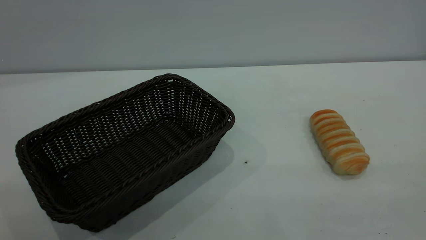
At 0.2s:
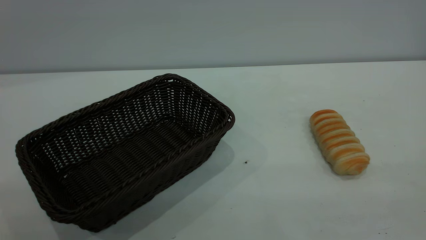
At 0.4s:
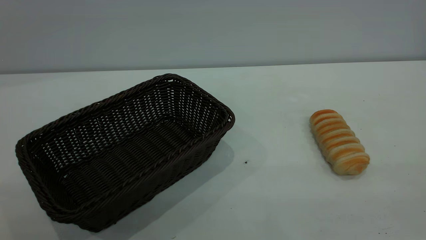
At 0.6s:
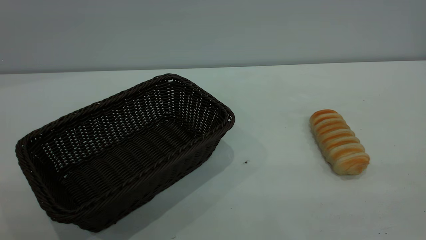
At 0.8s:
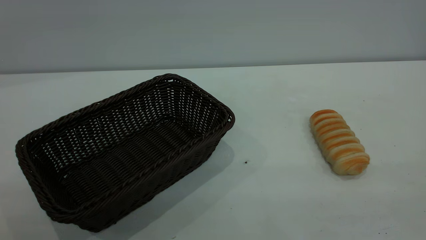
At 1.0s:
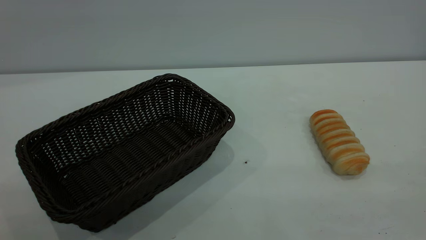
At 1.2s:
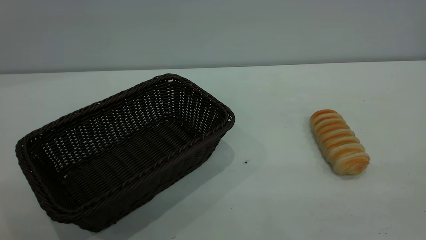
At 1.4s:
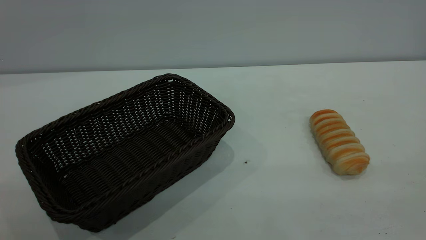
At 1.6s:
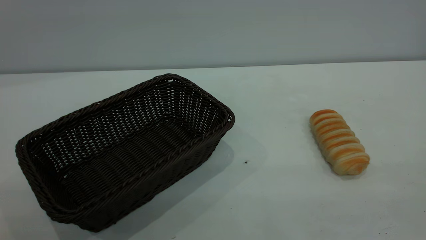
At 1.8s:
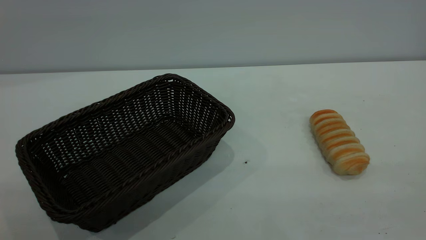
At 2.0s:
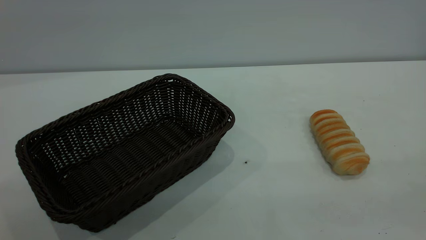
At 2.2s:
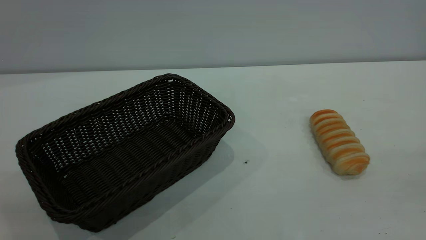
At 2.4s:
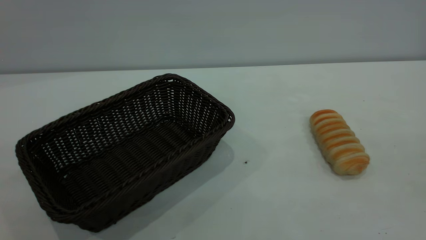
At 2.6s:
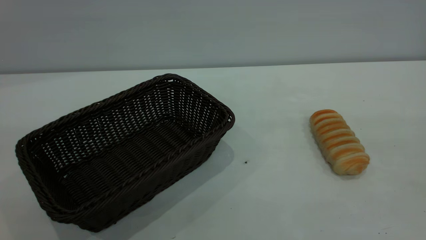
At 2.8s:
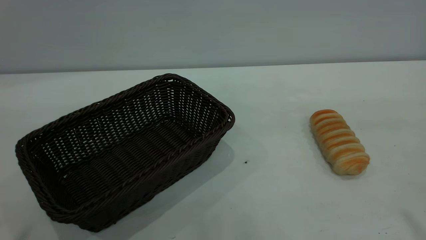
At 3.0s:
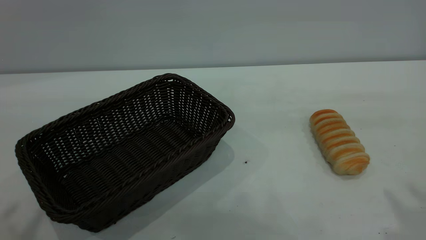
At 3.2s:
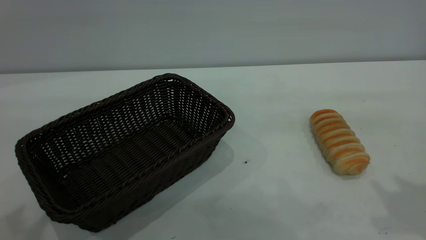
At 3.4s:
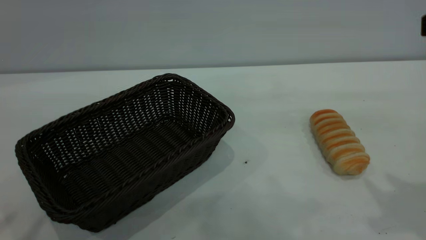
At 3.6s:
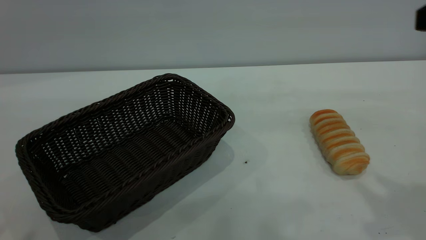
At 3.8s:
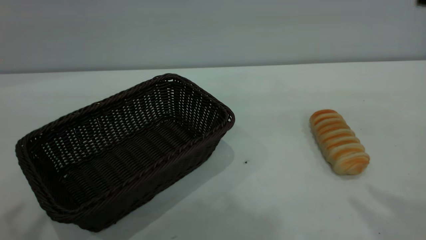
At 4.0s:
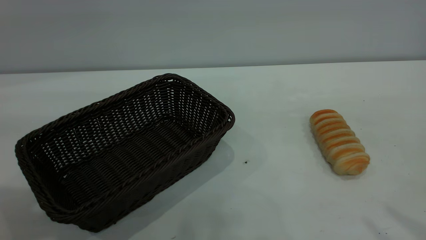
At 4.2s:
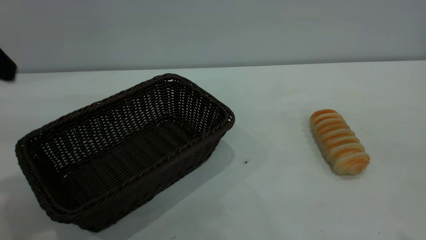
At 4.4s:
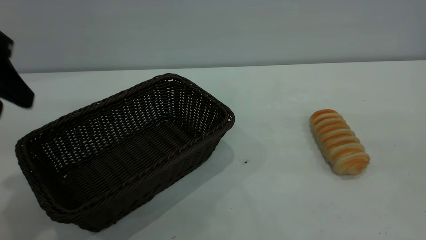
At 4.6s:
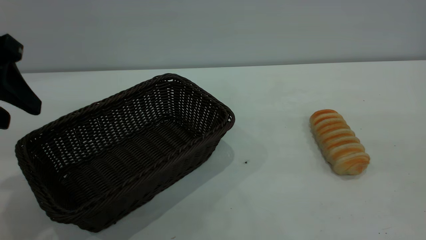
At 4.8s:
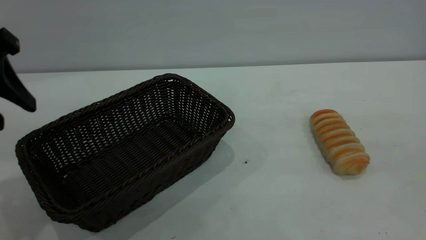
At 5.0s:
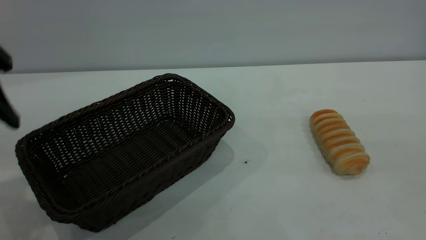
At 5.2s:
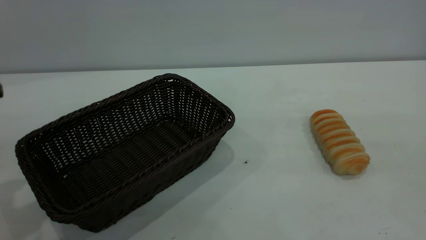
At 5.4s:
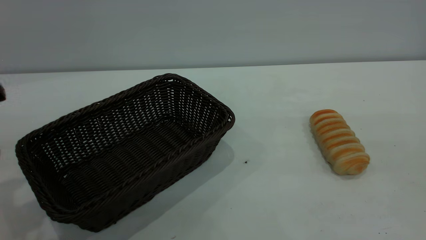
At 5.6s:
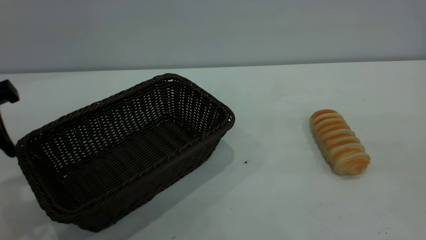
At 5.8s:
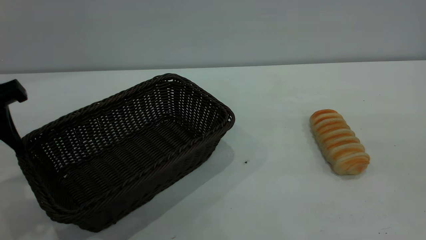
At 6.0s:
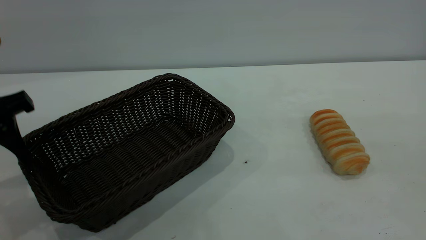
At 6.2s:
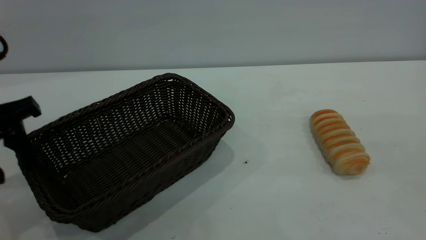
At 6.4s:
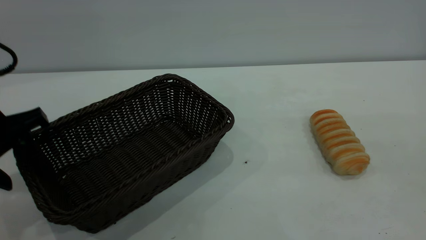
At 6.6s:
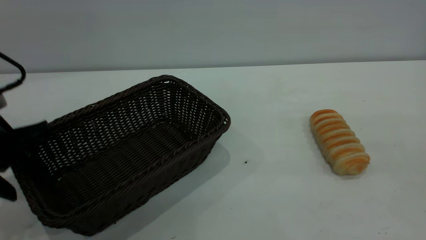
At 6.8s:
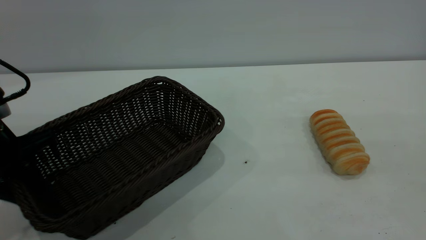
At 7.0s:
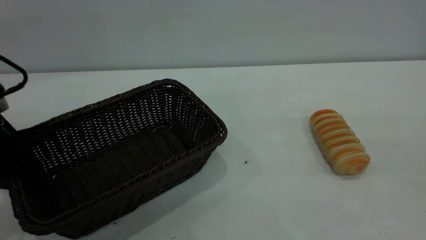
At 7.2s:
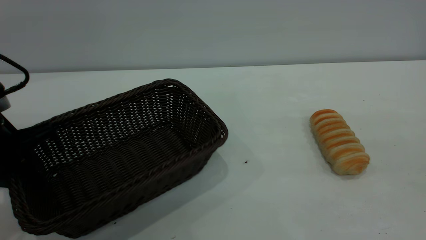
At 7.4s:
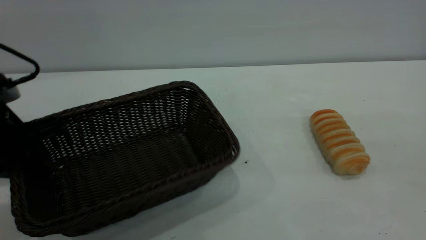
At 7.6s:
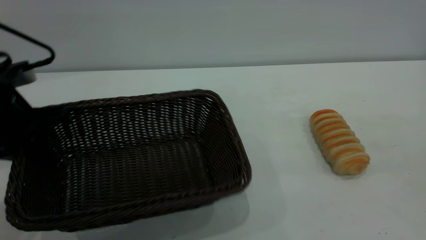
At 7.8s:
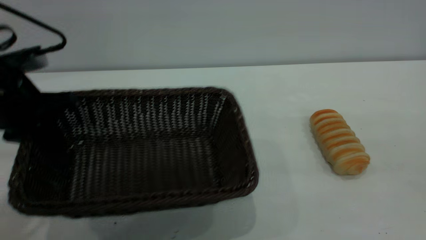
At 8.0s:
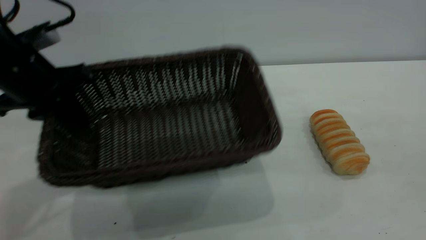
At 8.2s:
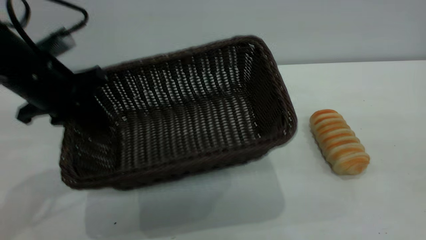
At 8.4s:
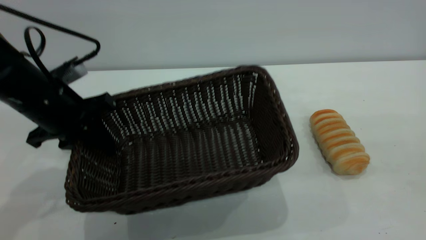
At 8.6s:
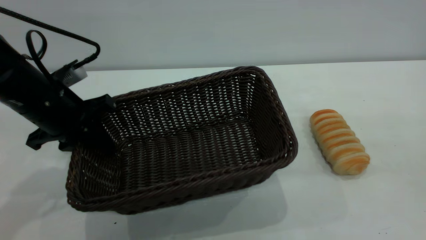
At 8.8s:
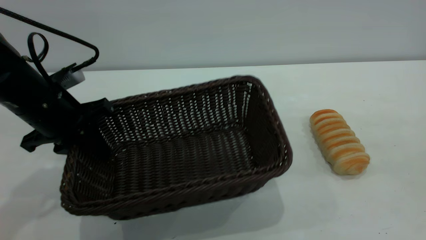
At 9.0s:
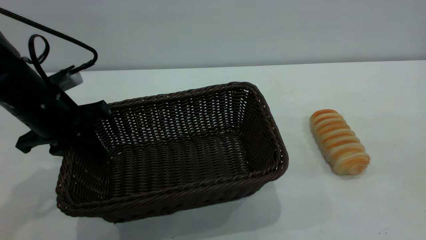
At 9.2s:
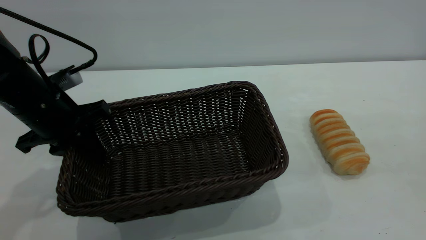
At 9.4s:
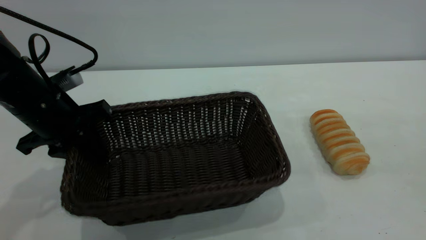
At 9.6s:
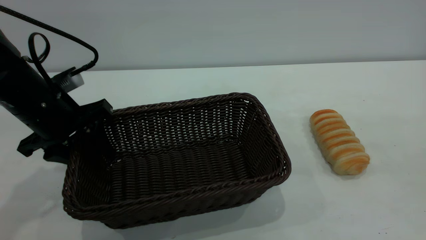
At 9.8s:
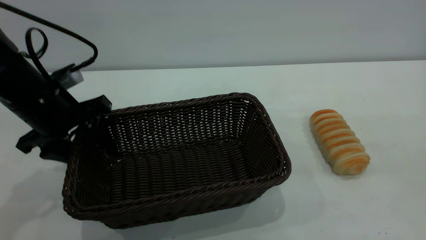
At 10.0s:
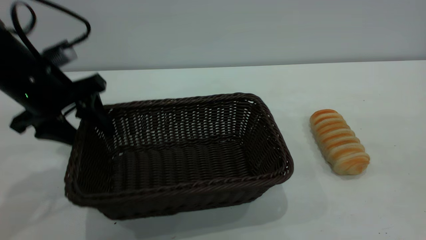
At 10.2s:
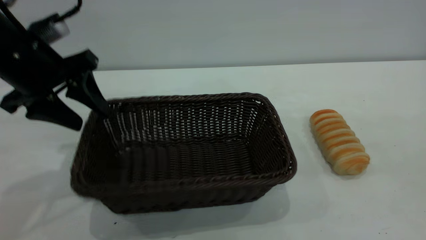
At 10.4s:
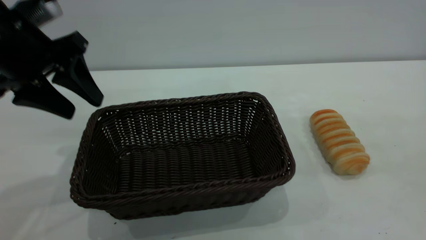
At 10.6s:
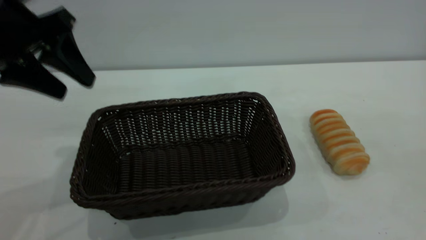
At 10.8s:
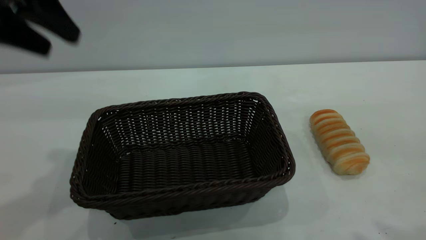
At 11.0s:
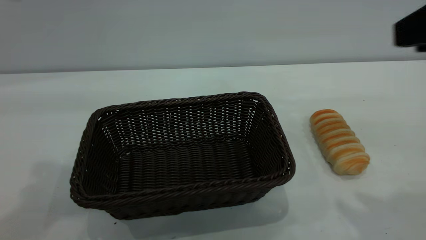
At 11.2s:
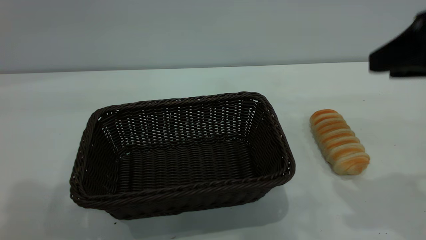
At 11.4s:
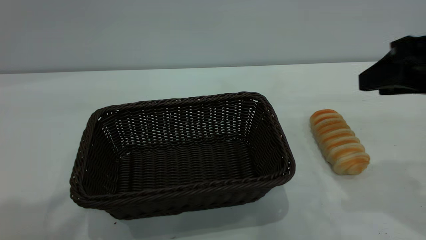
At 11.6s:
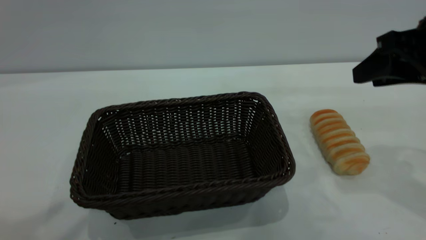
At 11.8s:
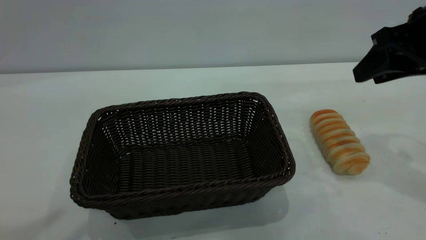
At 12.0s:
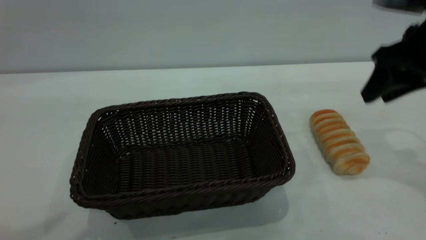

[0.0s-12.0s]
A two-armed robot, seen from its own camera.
Task of the whole recording: One hand grasps the black basket and places it in the middle of the table, while the other hand picks up the long bread and puts it into the black basket.
Step, 0.0s to 10.4s: Move the basket to the center of view.
0.0s to 1.6s: The two grippers keep their place.
3.0s to 4.4s: The left gripper is displaced downward and forward by approximately 15 cm.
4.4s to 6.0s: The left gripper goes roughly 5 cm downward.
6.0s to 7.6s: The left gripper closes.
7.6s to 9.0s: The left gripper changes place by roughly 5 cm.
9.0s to 10.4s: The left gripper goes about 10 cm upward, and opens.
10.4s to 12.0s: The left gripper shifts about 30 cm upward and backward. The right gripper heads forward and downward, covering about 30 cm.

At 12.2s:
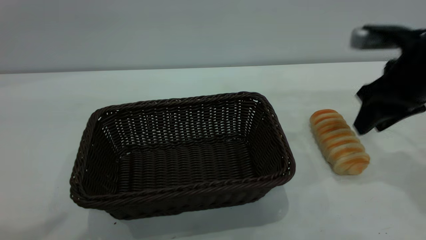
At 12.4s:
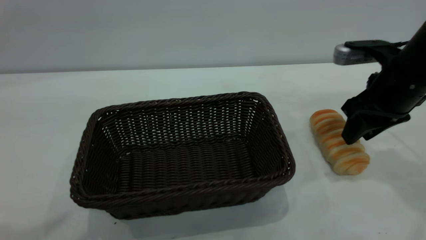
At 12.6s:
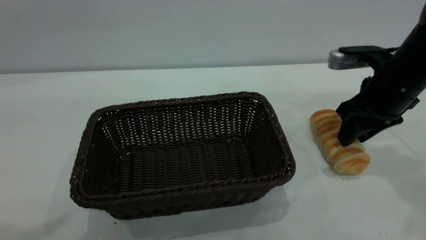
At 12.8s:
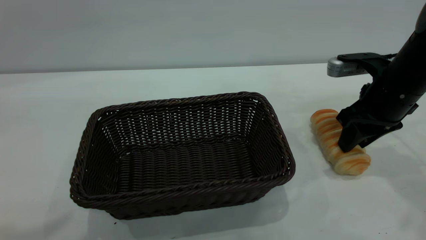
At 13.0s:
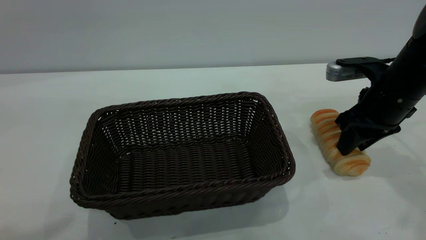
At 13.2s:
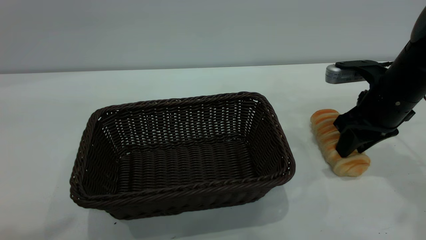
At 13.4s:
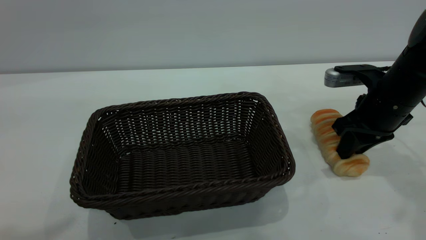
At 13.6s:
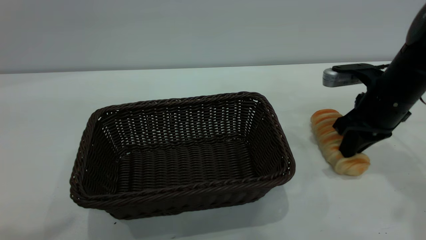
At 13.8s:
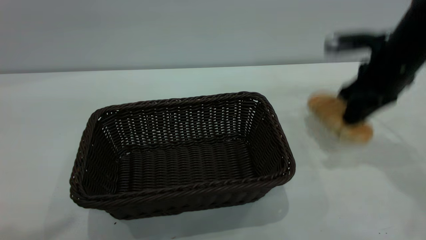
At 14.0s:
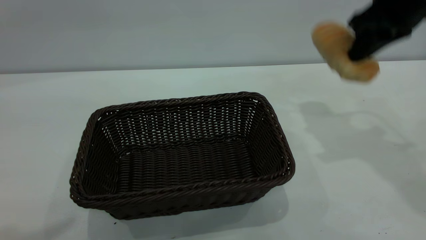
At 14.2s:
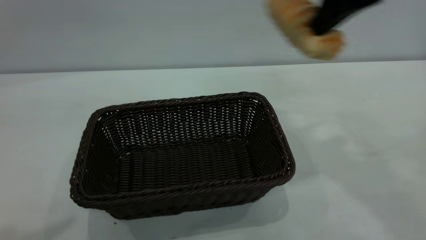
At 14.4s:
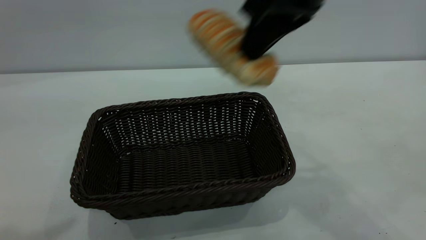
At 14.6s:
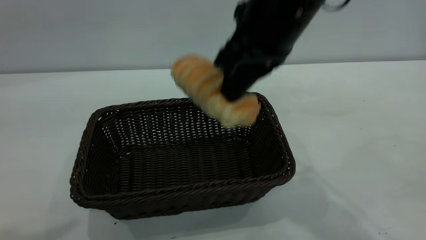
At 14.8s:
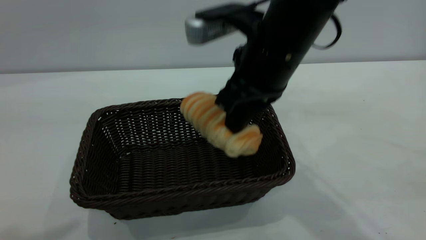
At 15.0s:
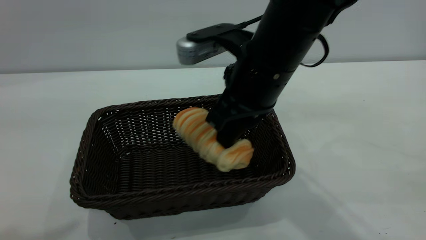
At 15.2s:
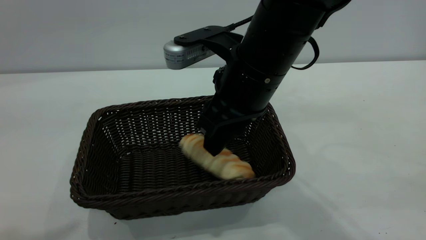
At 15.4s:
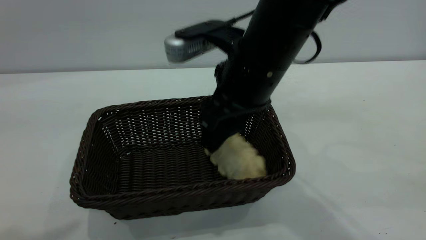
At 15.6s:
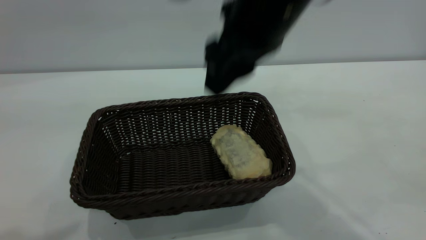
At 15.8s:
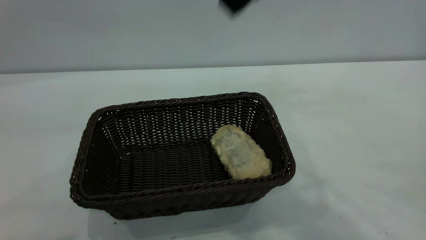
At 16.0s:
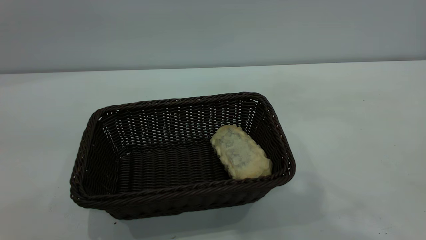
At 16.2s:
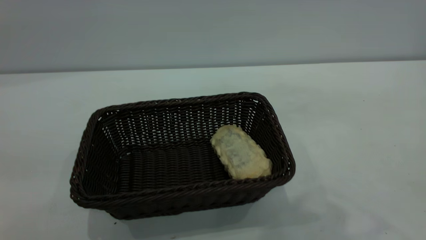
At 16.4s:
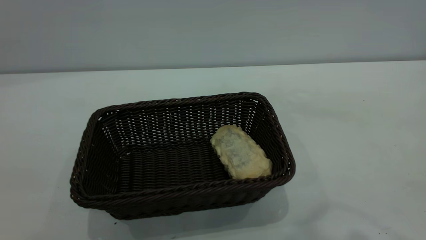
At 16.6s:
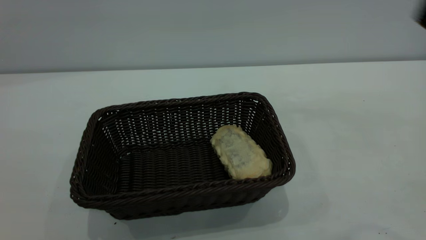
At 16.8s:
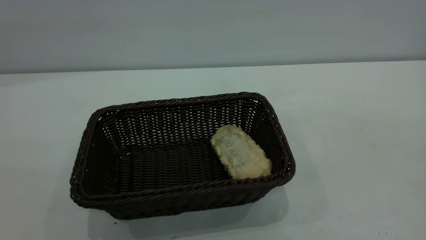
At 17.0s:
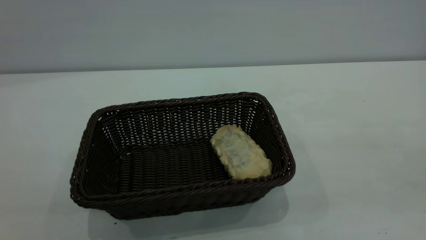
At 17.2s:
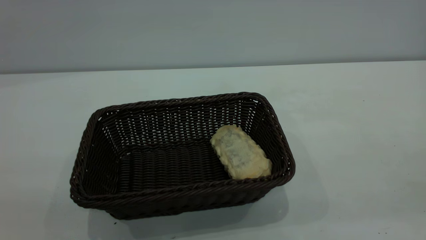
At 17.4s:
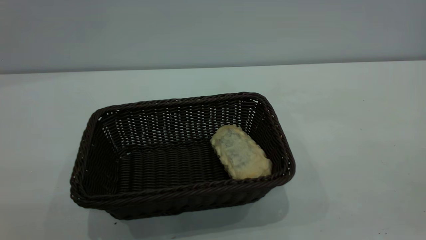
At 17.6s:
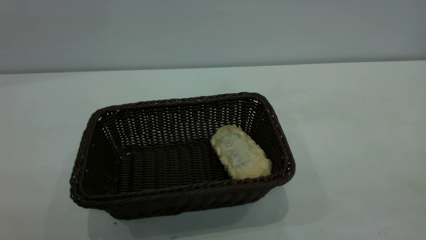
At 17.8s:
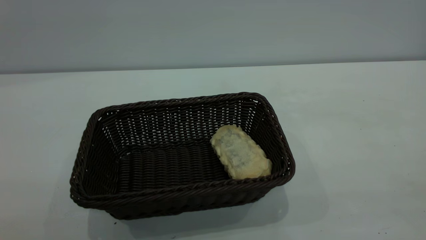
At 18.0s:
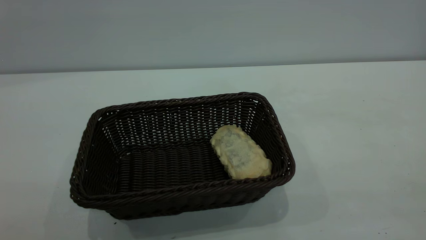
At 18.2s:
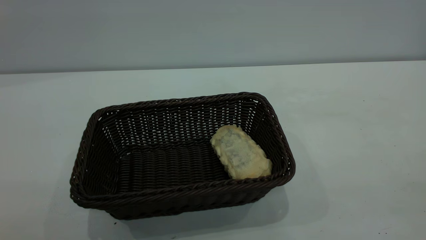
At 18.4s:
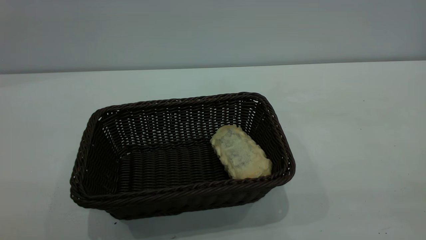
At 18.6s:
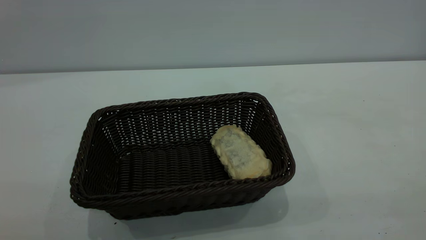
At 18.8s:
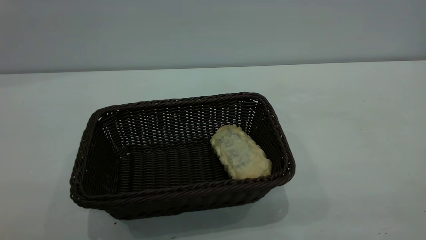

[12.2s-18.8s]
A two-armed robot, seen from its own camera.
Task of the whole recording: One hand grasps the black basket and places it in the middle of the table, while the other hand picks up the long bread and puts it into the black basket.
Step, 14.0s to 15.6s: place the bread into the basket.
12.2s to 13.8s: The right gripper moves about 5 cm downward and comes back, and closes its fingers.
13.8s to 15.4s: The right gripper shifts some 20 cm to the left and backward, and opens up.
15.4s to 17.2s: The right gripper shifts roughly 40 cm backward, to the right and upward. Meanwhile the left gripper is displaced backward and downward by approximately 15 cm.
